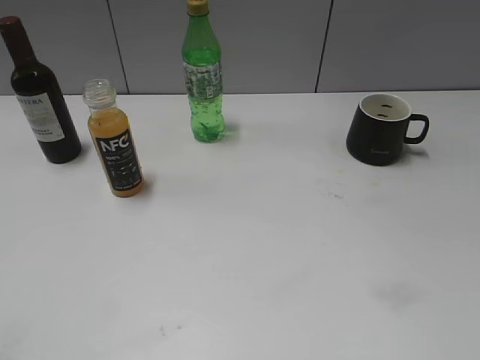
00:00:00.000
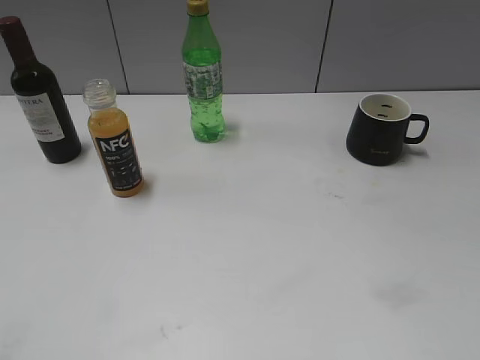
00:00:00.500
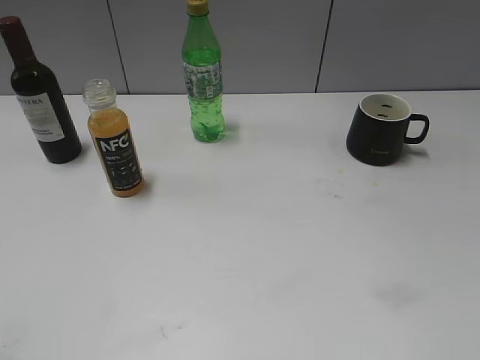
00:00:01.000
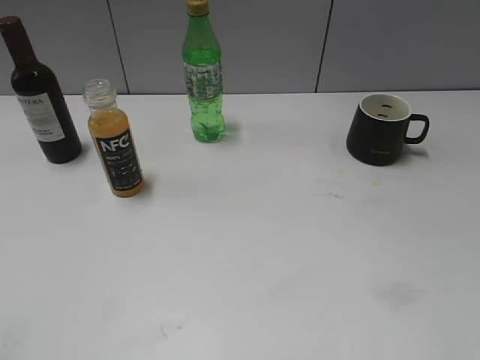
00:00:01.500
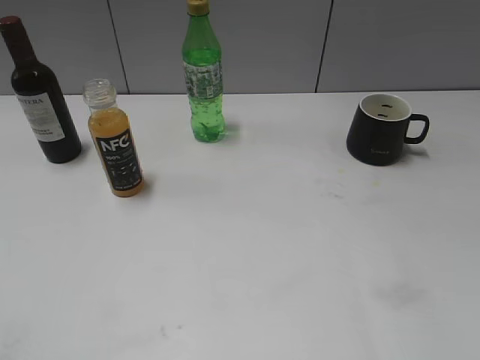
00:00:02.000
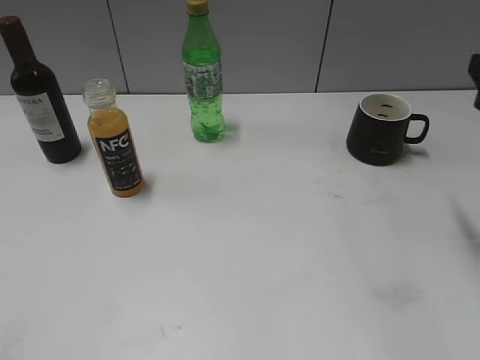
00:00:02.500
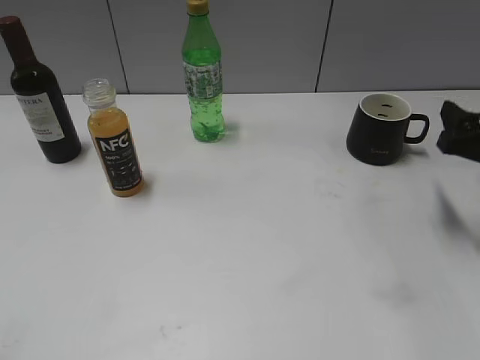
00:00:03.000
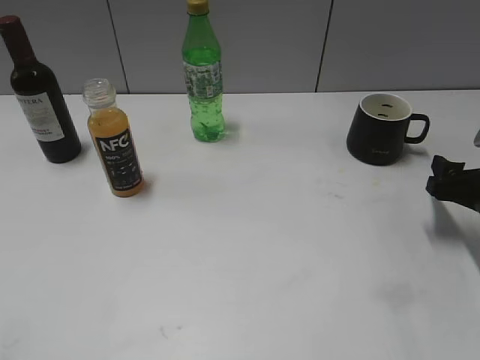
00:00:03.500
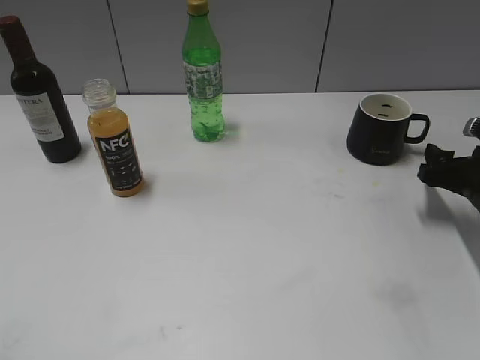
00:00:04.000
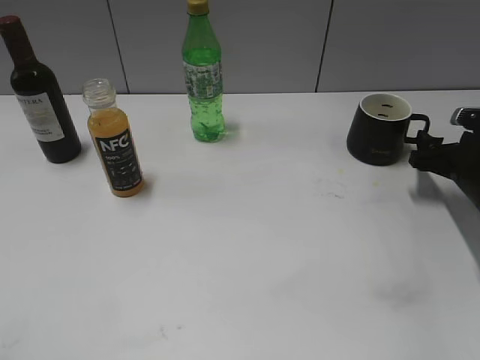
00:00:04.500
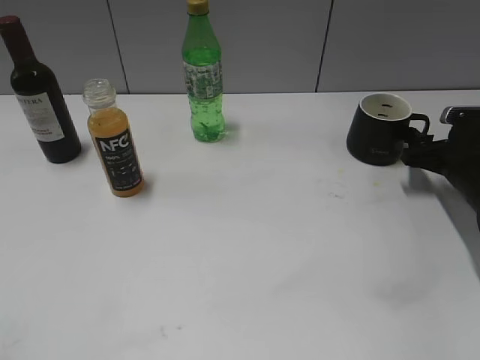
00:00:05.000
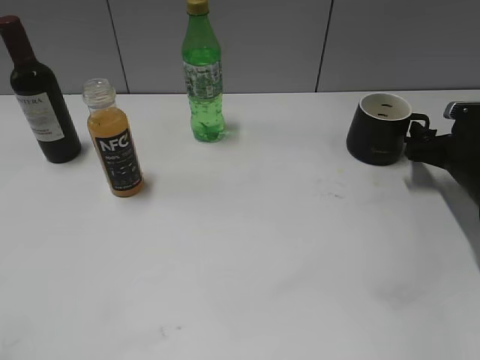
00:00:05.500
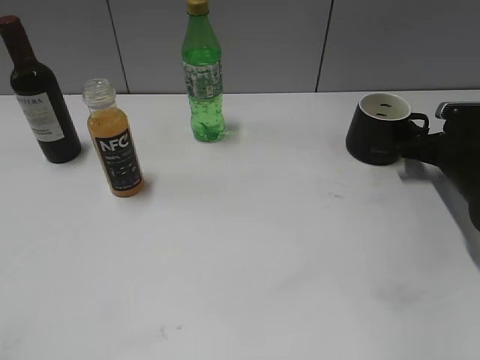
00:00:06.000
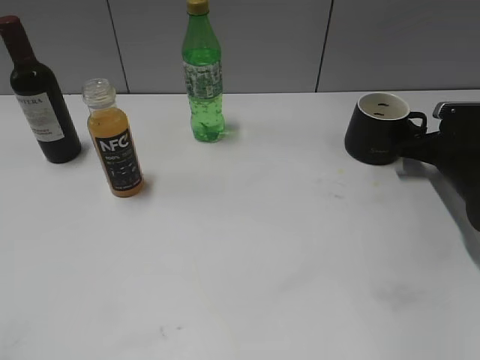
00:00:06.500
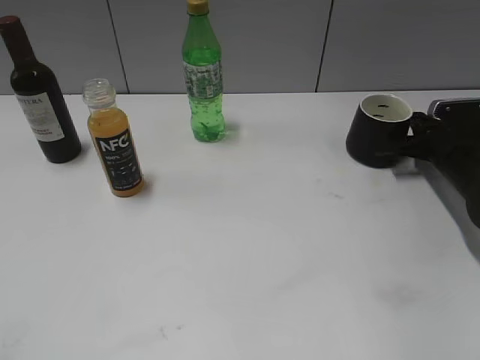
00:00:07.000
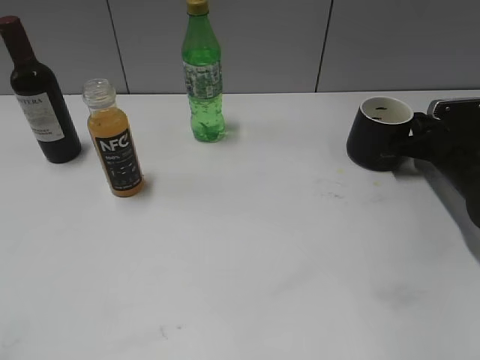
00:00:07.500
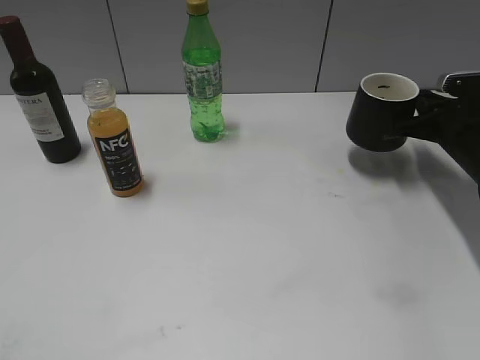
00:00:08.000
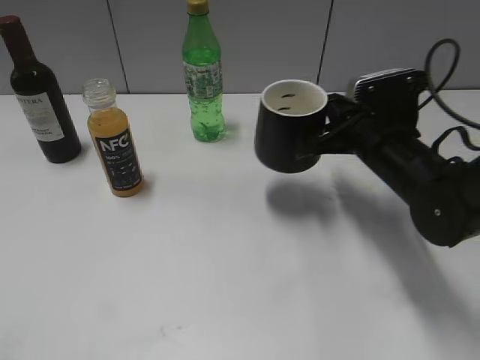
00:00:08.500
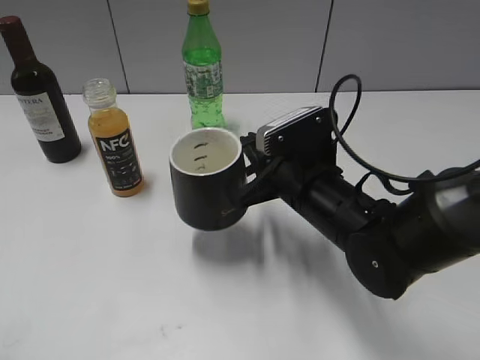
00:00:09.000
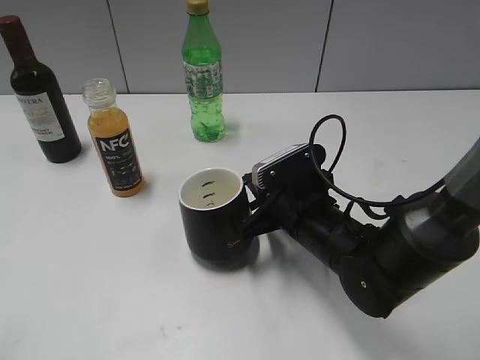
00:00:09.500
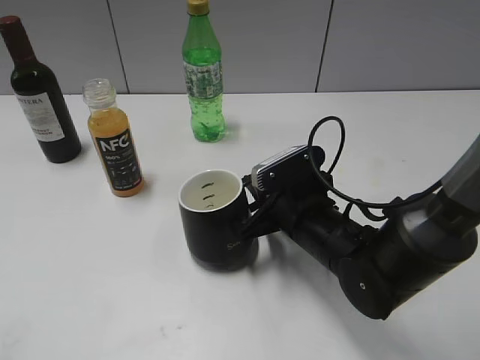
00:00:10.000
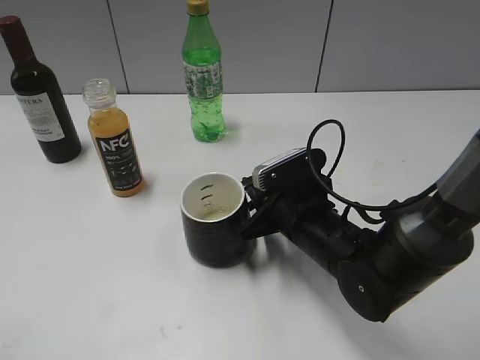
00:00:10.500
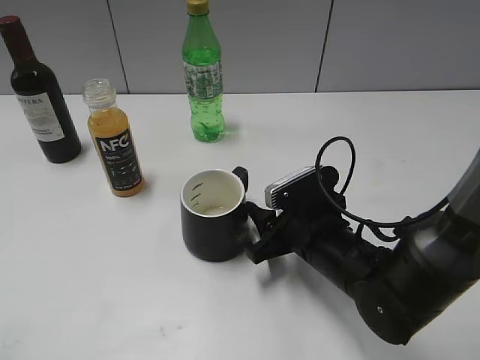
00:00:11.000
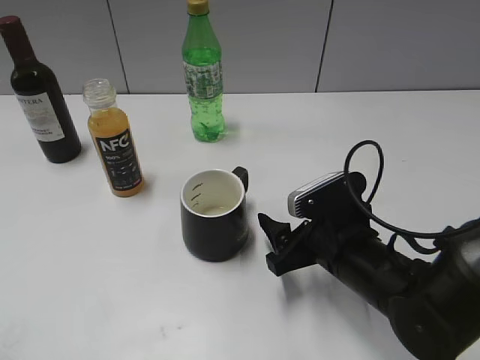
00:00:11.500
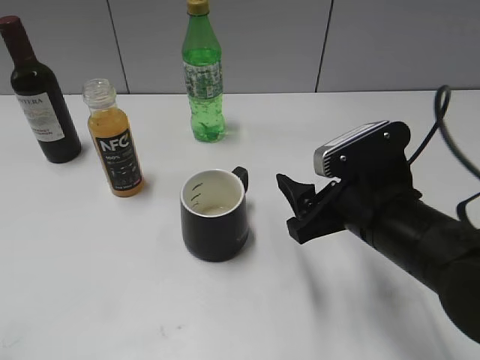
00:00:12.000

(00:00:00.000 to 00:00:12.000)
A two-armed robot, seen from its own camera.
Step, 00:00:03.000 - 00:00:07.500: Grasp the black cup with right gripper.
Step, 00:00:08.000 - 00:00:11.000: Place the black cup in the center of view with right gripper.
00:00:02.000 - 00:00:04.000: The right gripper goes approximately 30 cm downward and forward.
00:00:04.000 - 00:00:06.000: The right gripper heads forward, covering roughly 10 cm.
00:00:06.000 - 00:00:08.000: The right gripper moves about 5 cm, and closes its fingers.
00:00:08.000 - 00:00:10.000: The right gripper travels to the left and backward by about 25 cm.
00:00:10.000 - 00:00:12.000: The right gripper shifts some 10 cm upward, backward and to the right, and opens up.

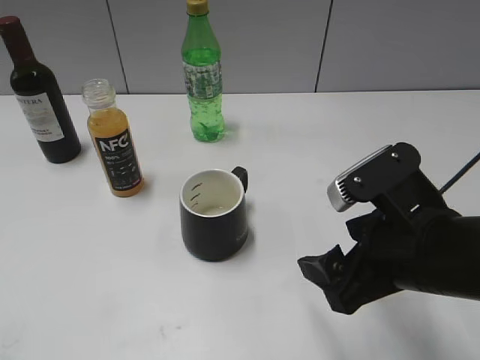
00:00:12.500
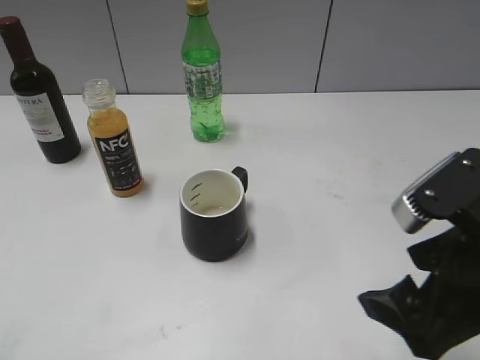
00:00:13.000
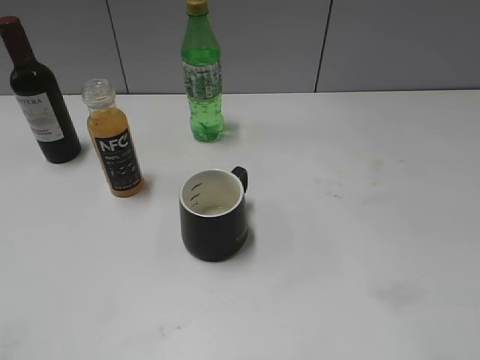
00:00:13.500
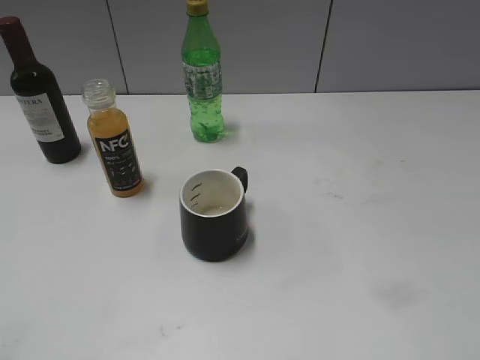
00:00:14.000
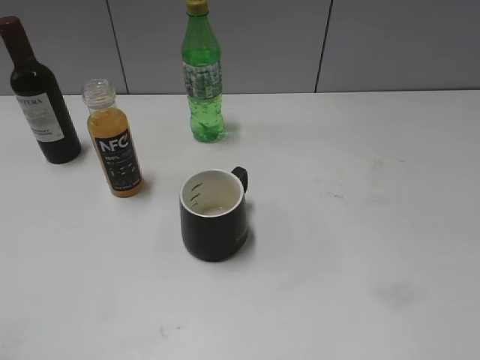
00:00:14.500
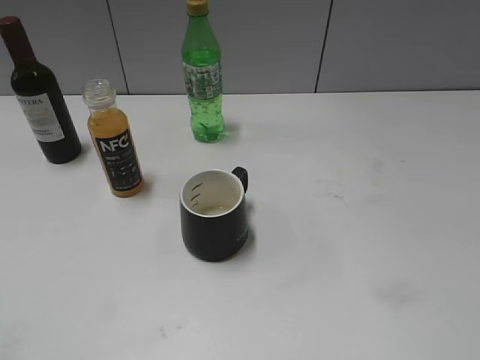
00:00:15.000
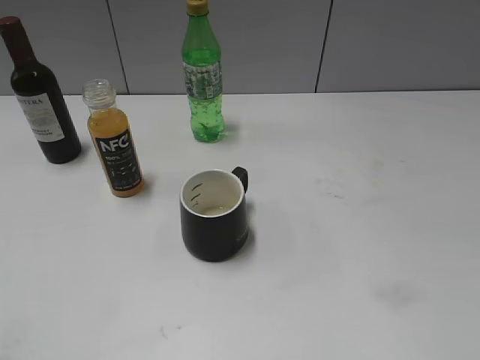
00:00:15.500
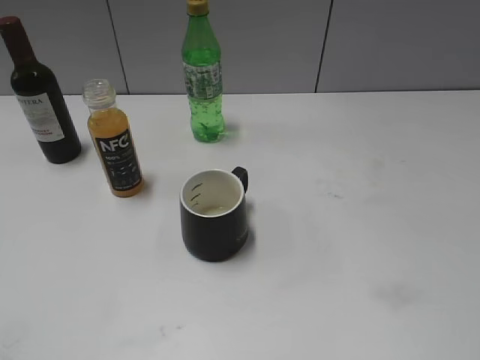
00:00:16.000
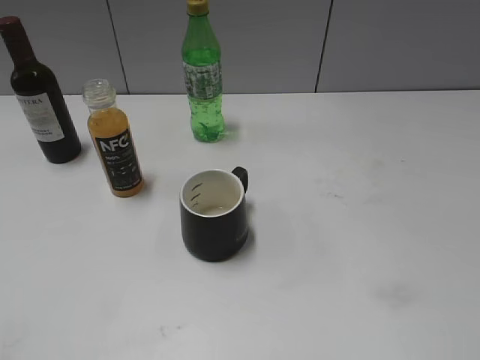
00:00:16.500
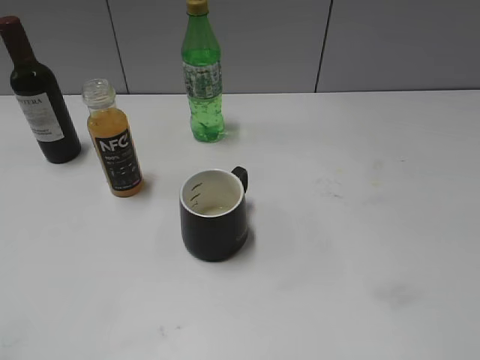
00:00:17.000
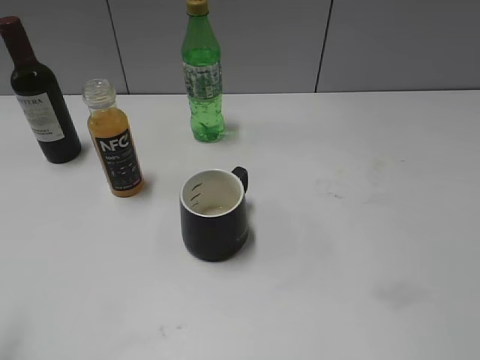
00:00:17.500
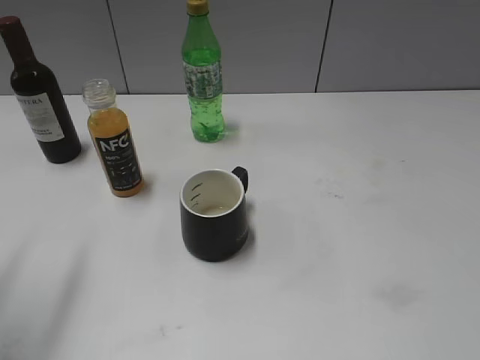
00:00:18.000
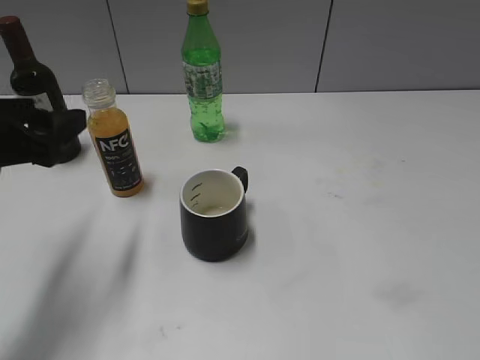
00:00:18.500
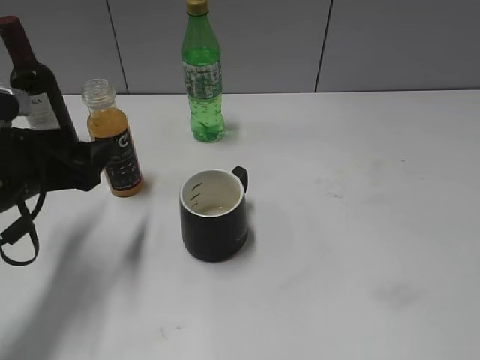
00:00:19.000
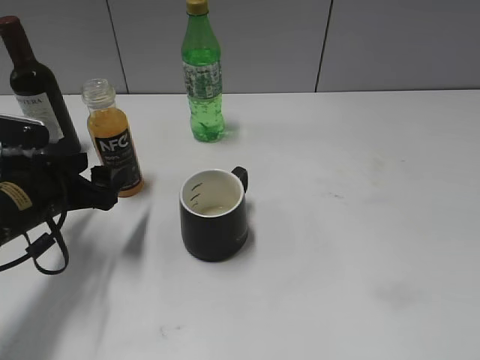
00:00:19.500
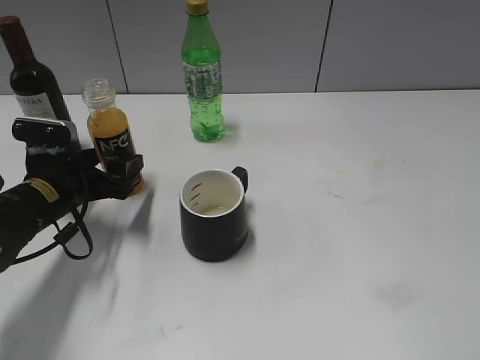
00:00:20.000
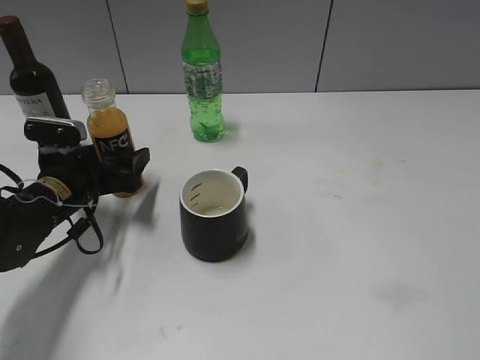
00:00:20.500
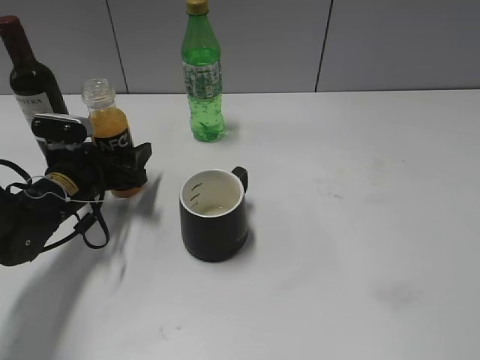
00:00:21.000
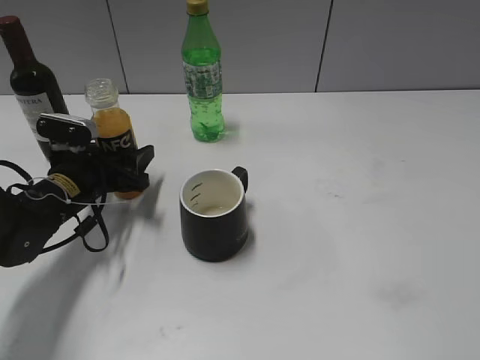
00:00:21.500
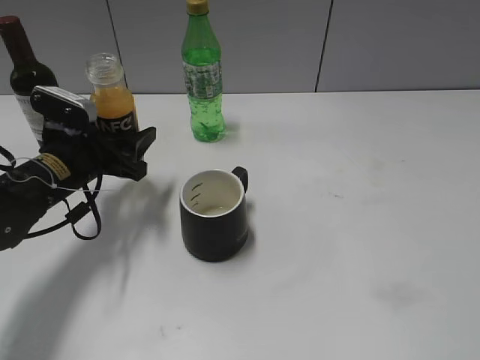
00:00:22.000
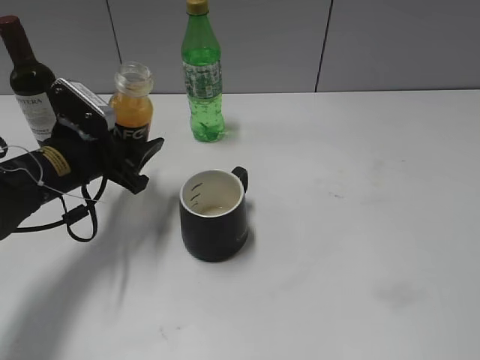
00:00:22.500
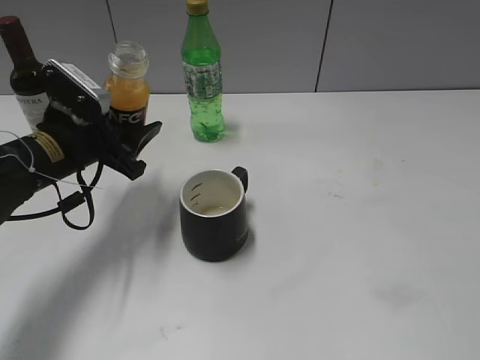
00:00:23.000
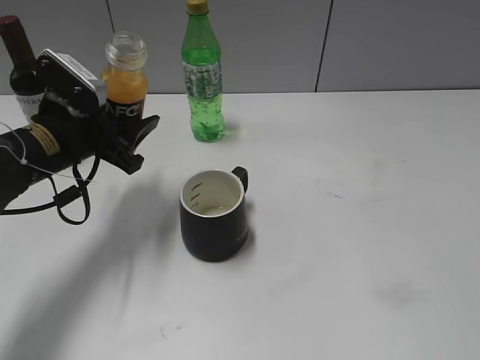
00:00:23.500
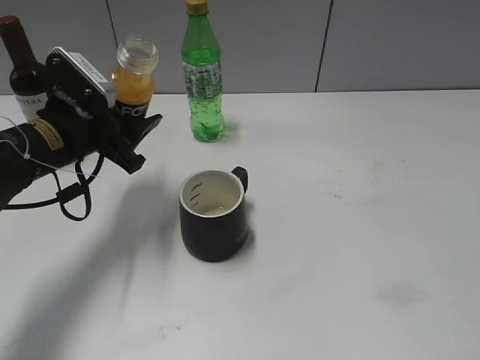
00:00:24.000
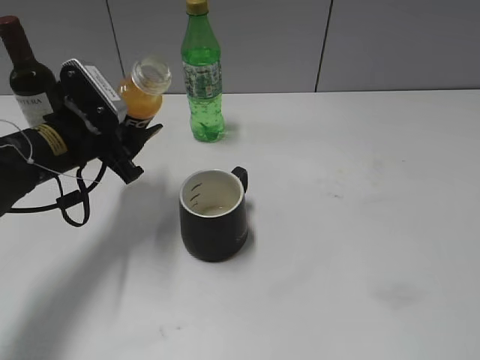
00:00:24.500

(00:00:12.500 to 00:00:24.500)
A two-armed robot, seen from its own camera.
Step, 00:00:12.500 - 00:00:21.500: Grasp the bottle with orange juice with left gripper.
00:00:12.500 - 00:00:14.500: The right gripper travels backward, to the right and upward by about 25 cm.
00:00:16.500 - 00:00:18.500: The left gripper shifts some 25 cm forward.
00:00:18.500 - 00:00:20.500: The left gripper moves downward and forward, some 15 cm.
00:00:20.500 - 00:00:22.500: The left gripper shifts by some 5 cm, and closes up.
00:00:22.500 - 00:00:24.500: The grippers move only a little.

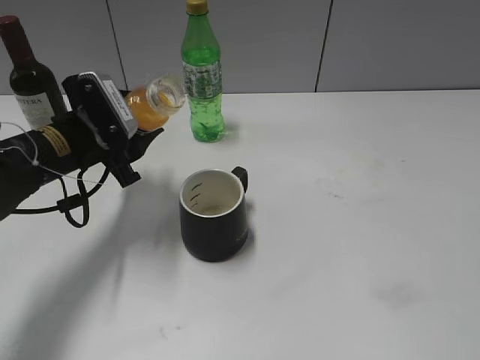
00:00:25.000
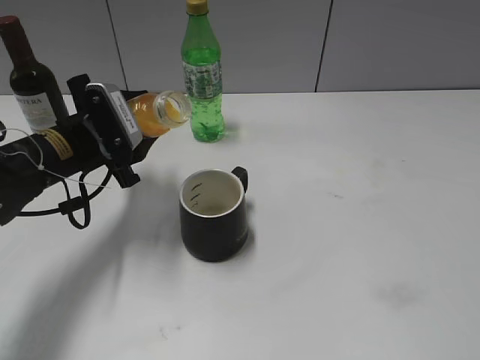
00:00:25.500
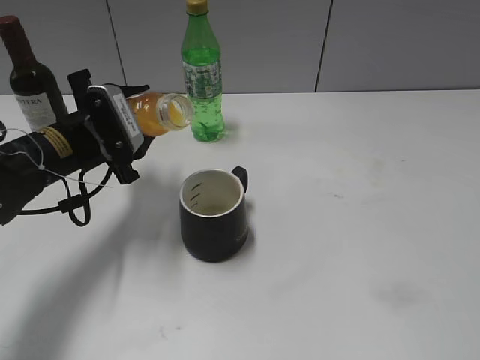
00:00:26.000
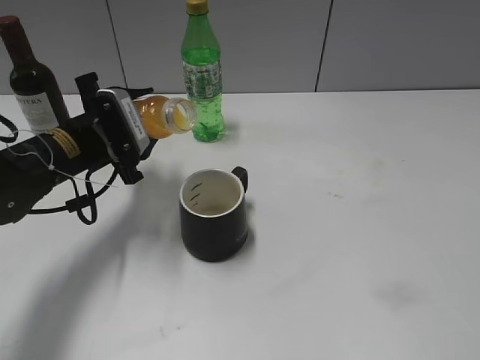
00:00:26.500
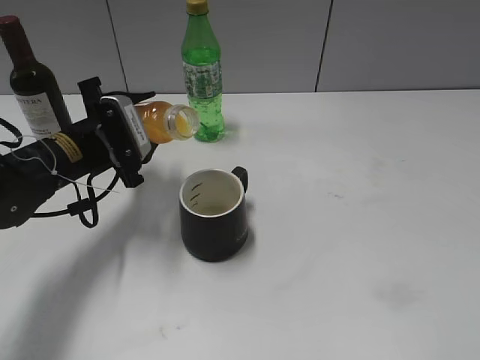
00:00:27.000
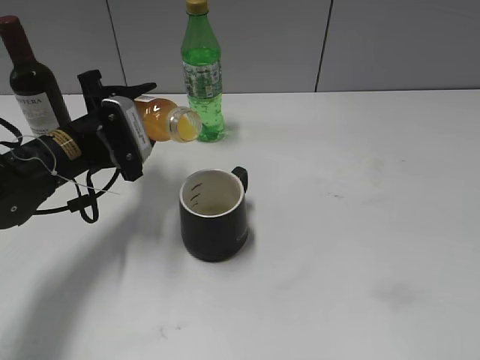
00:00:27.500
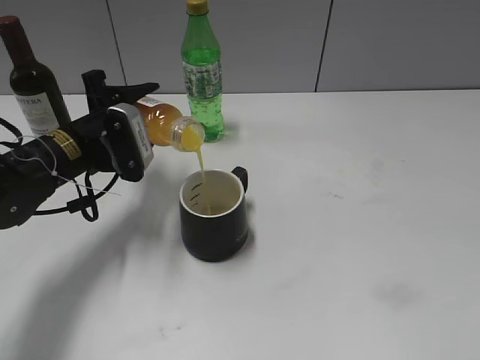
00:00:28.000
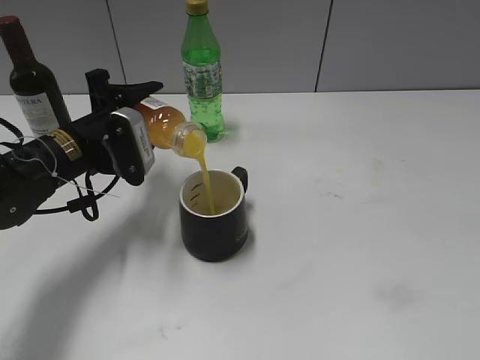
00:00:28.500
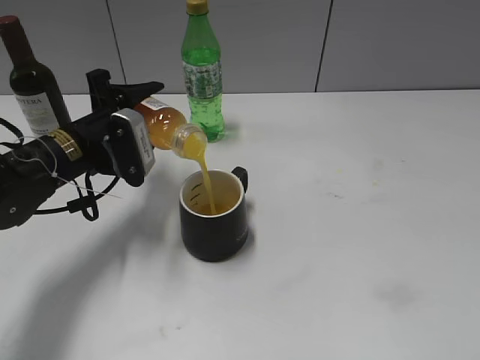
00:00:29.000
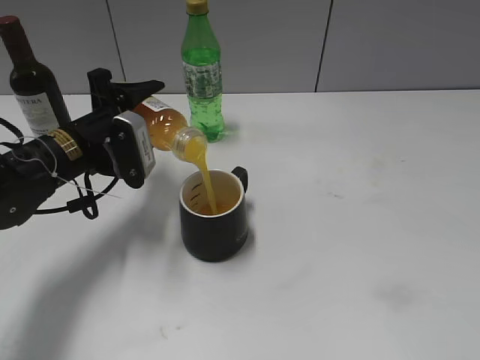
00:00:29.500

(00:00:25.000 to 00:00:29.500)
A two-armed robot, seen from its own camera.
00:00:25.000 - 00:00:27.000: The grippers make only small movements.
